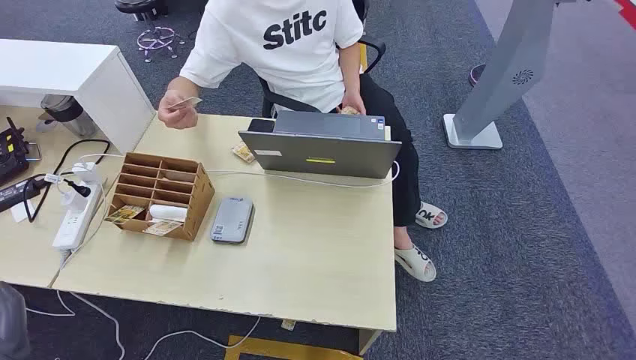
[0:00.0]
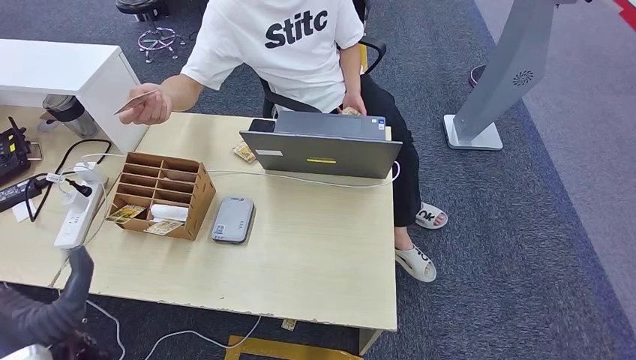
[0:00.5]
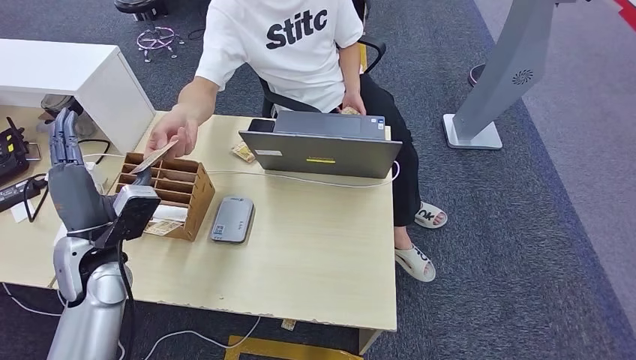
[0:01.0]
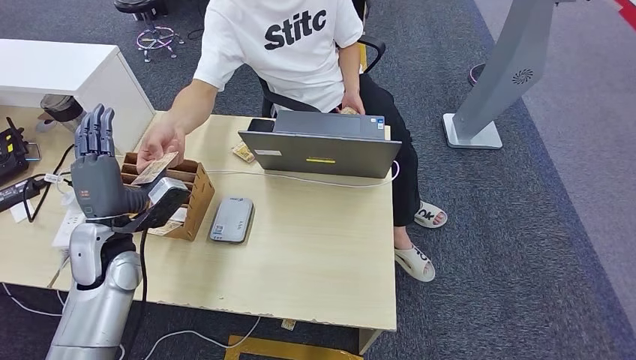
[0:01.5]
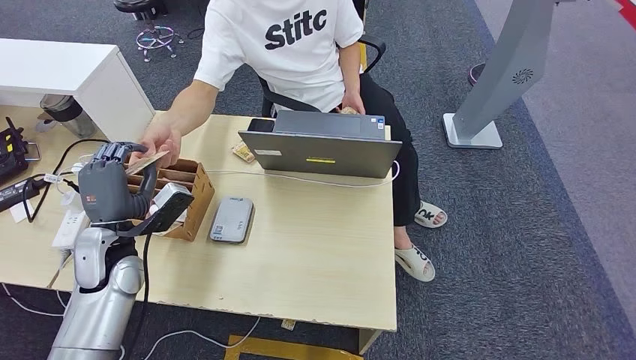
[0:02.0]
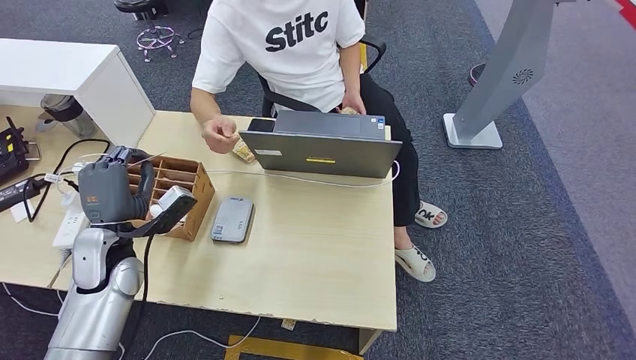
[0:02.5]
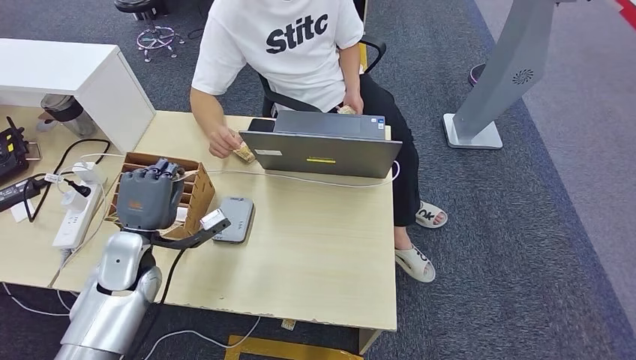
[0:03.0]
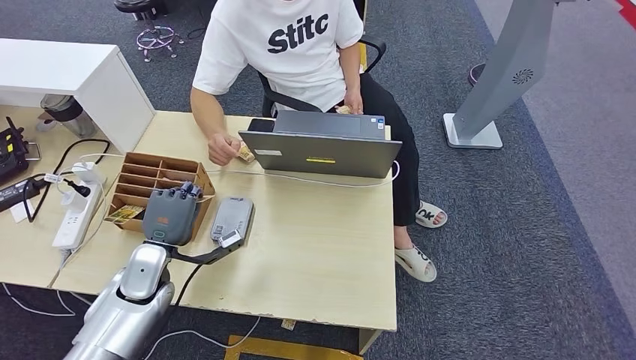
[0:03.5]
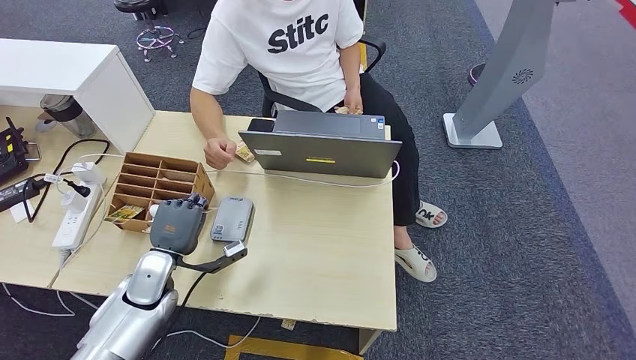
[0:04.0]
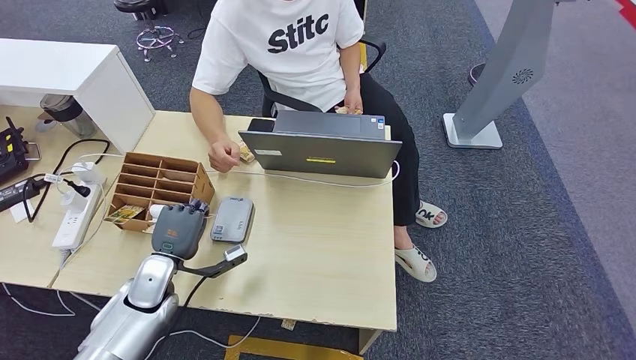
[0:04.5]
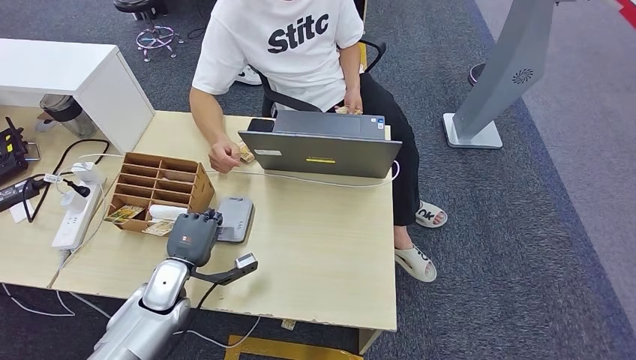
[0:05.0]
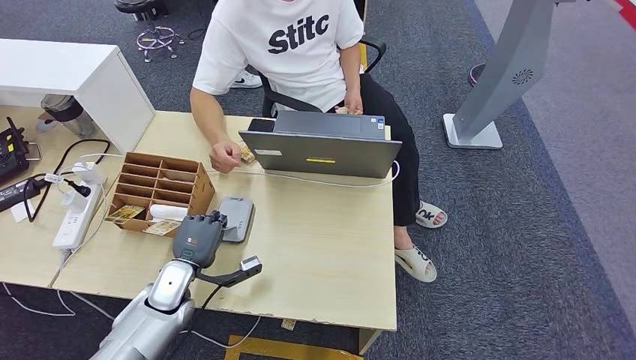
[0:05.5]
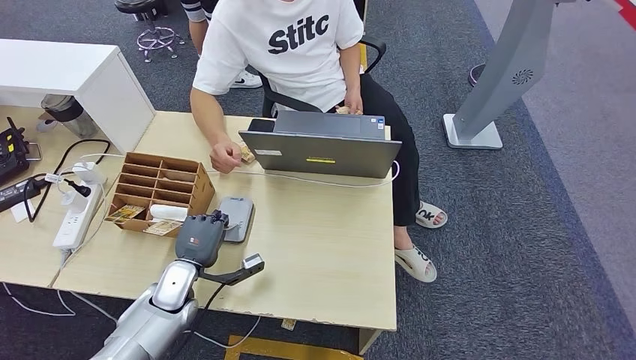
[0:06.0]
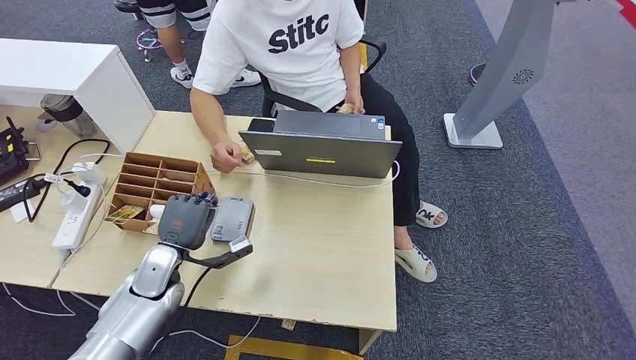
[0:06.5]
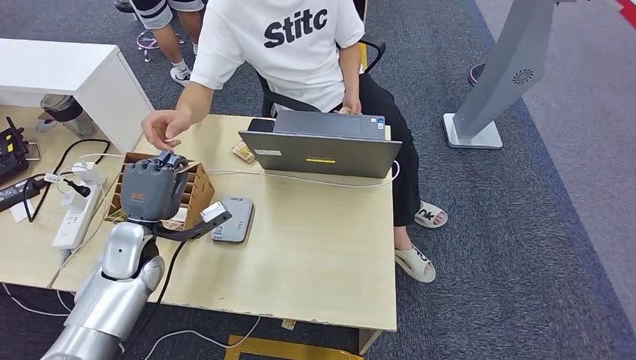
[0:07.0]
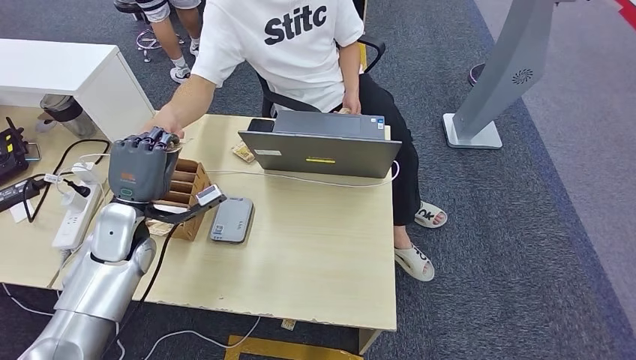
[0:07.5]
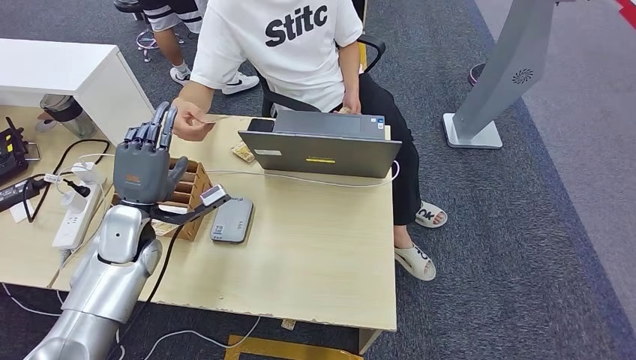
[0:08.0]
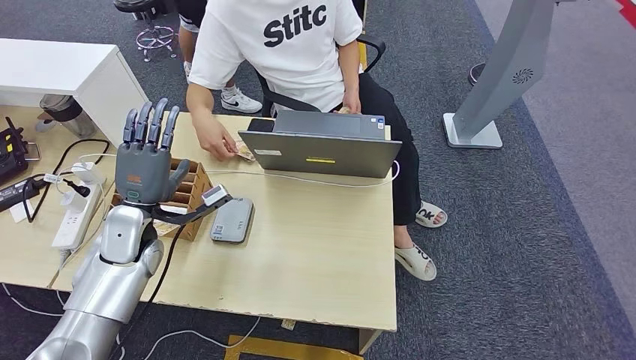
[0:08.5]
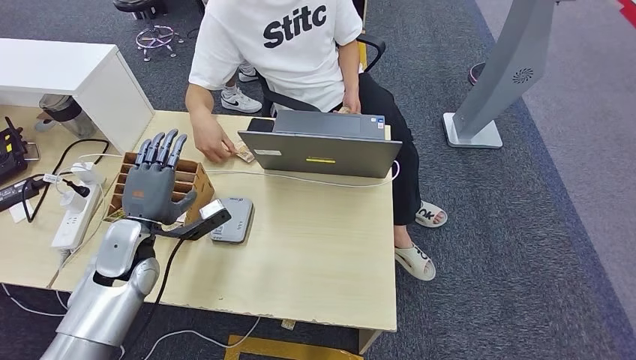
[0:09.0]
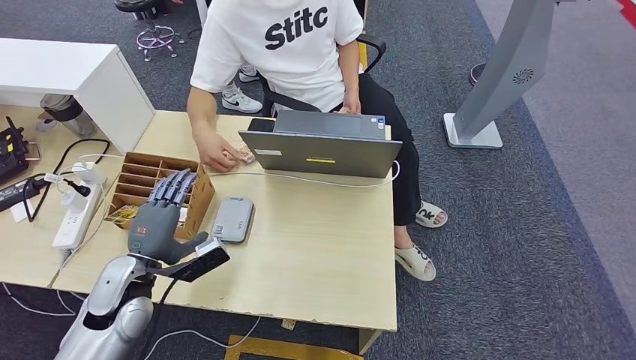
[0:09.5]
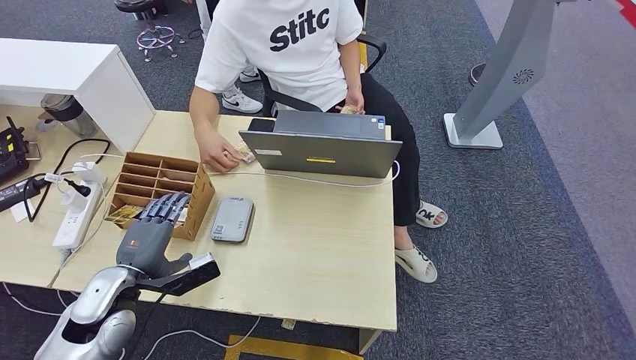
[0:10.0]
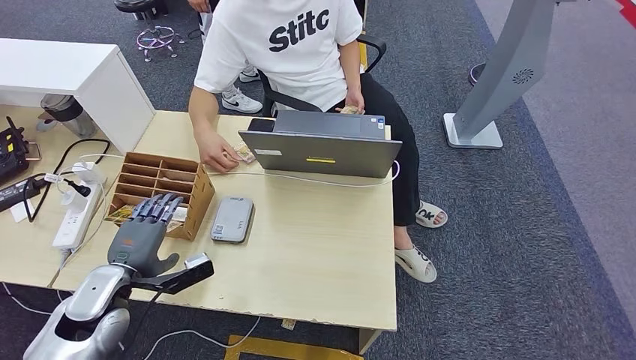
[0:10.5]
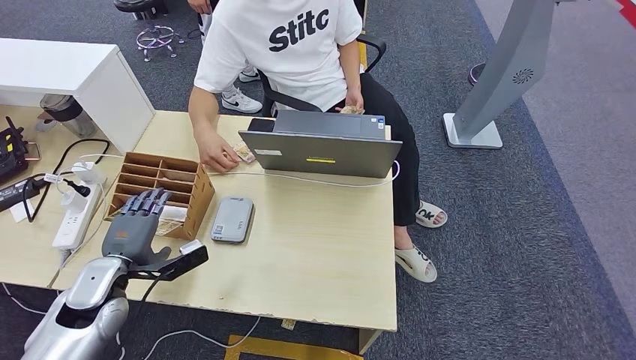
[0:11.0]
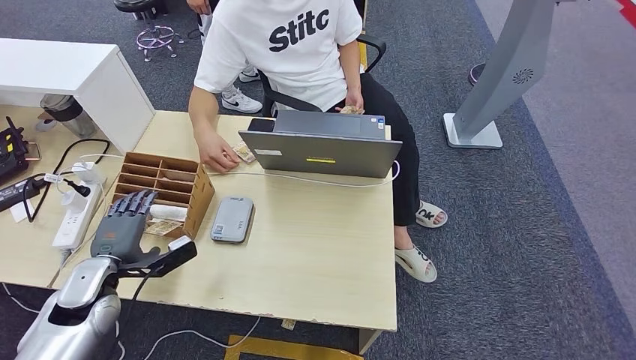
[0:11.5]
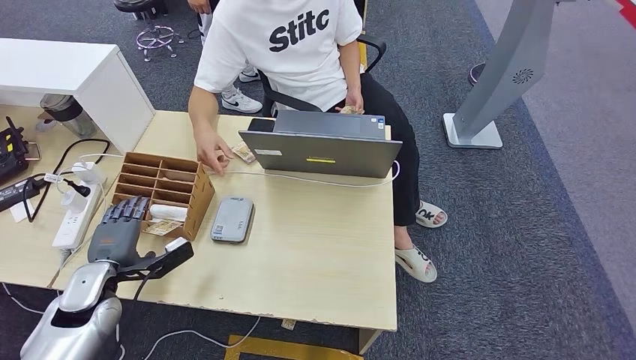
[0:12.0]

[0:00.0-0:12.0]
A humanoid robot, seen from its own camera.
Step, 0:00.0 to 0:02.5: Take the ID card from the person's hand.
Step, 0:03.0 to 0:06.0: Place the ID card on the card reader.
Step, 0:06.5 to 0:08.0: Hand the ID card to the person.
0:02.0 to 0:04.0: The left hand goes about 10 cm downward.
0:04.0 to 0:06.0: The left hand shifts by roughly 5 cm.
0:06.0 to 0:08.0: The left hand shifts some 15 cm upward.
0:08.0 to 0:10.0: The left hand is displaced backward by approximately 10 cm.
0:10.0 to 0:12.0: The left hand travels to the left by about 5 cm.

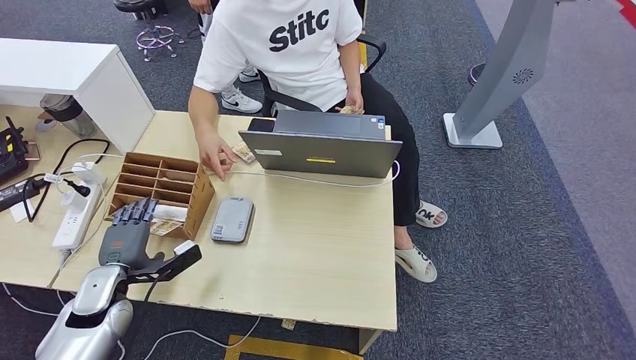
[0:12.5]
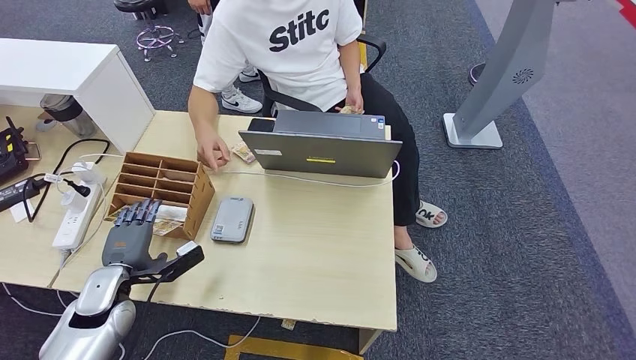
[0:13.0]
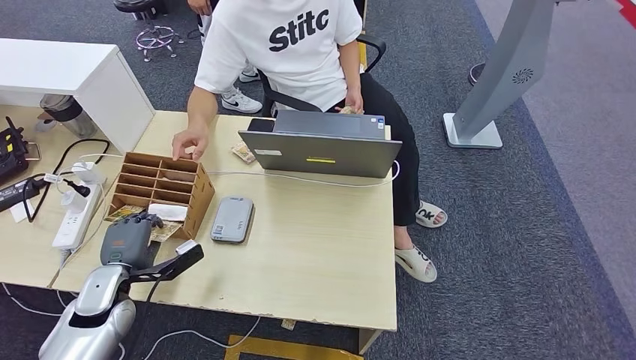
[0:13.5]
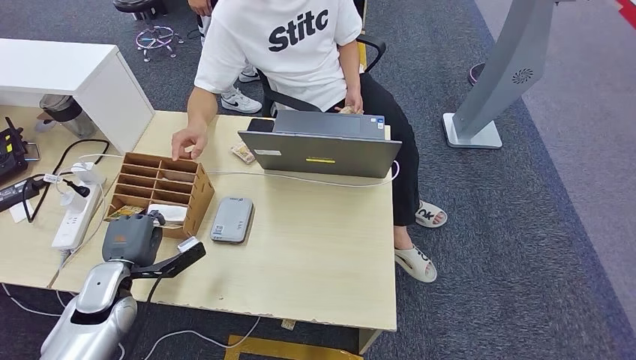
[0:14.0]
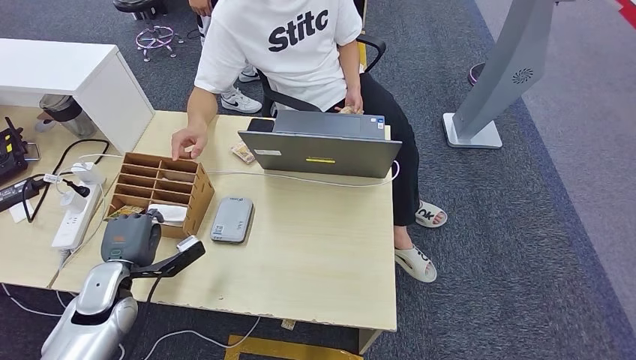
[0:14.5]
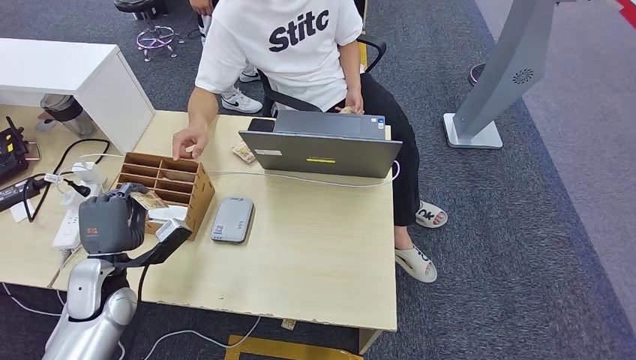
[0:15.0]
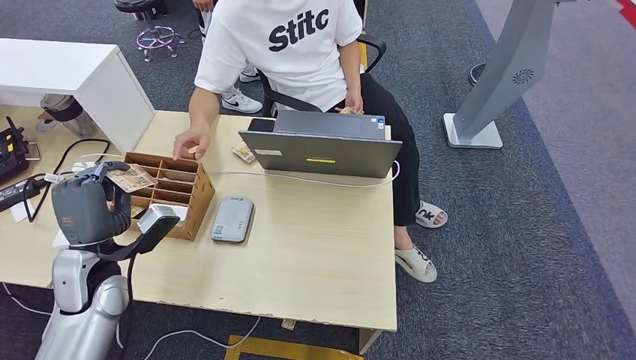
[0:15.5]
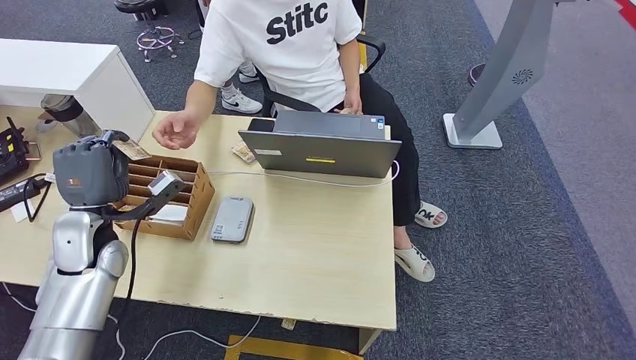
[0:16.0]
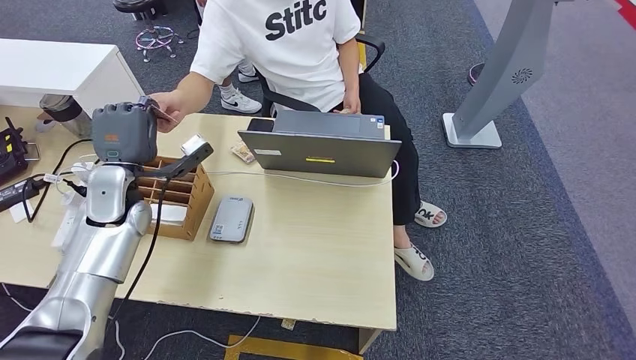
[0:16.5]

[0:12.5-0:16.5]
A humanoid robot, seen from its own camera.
Step, 0:12.5 to 0:15.5: Pick up the room key from the key card box.
Step, 0:16.0 to 0:16.5: Hand the room key to the person.
0:12.5 to 0:14.5: There are only small adjustments of the hands.
0:14.5 to 0:16.5: The left hand moves upward and forward, approximately 20 cm.

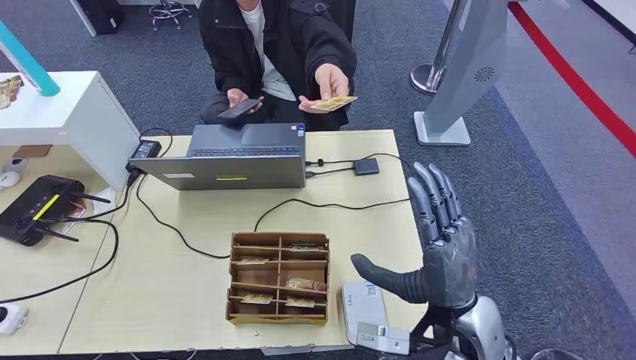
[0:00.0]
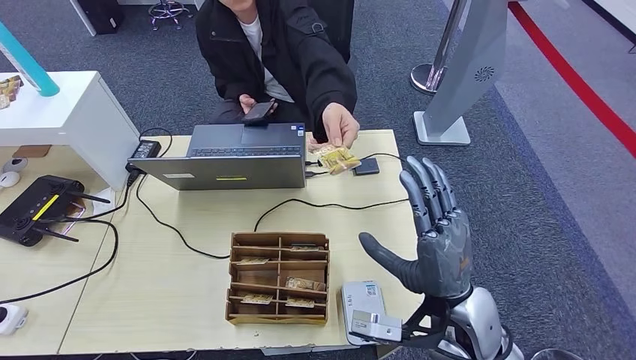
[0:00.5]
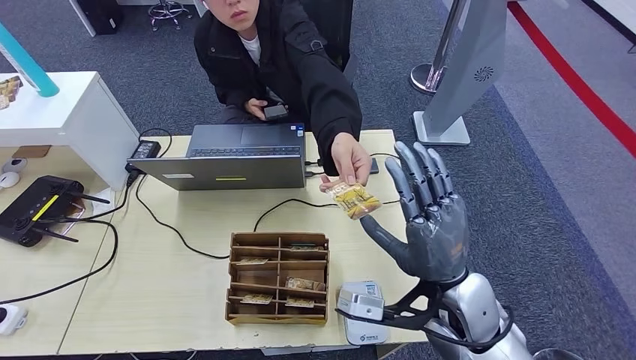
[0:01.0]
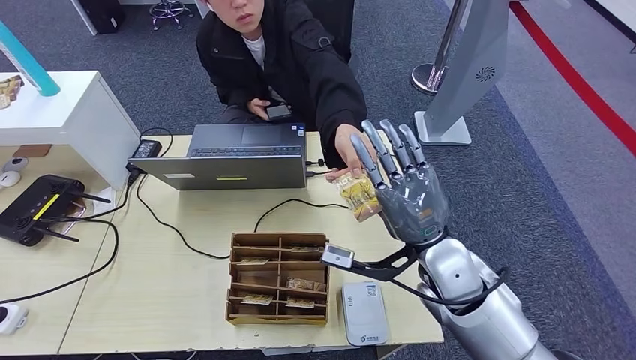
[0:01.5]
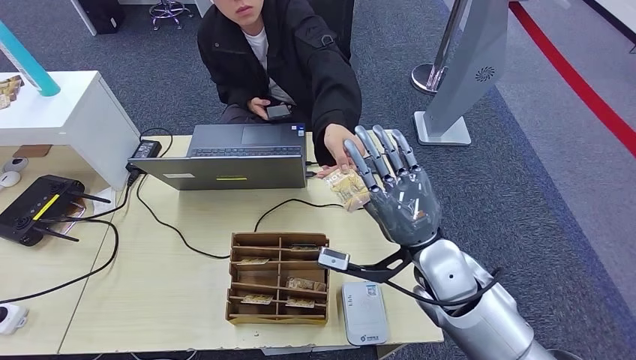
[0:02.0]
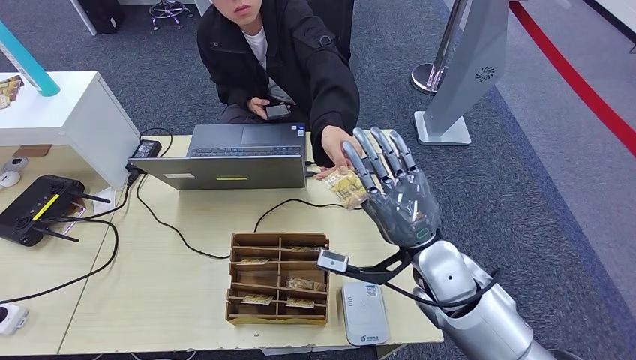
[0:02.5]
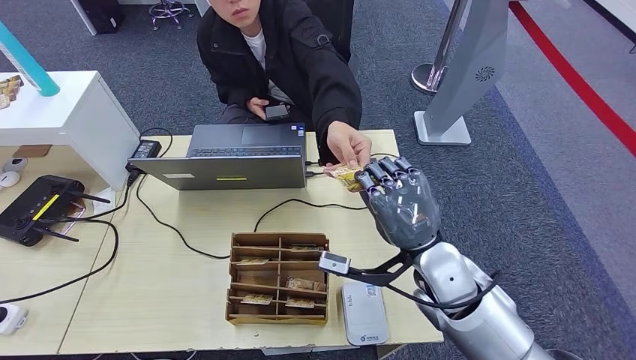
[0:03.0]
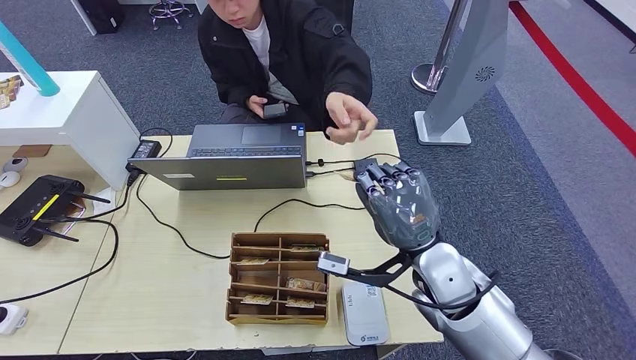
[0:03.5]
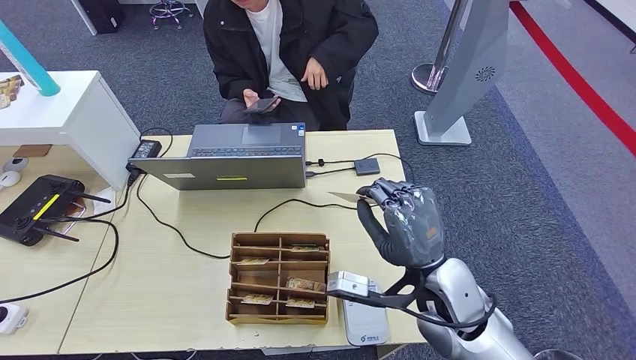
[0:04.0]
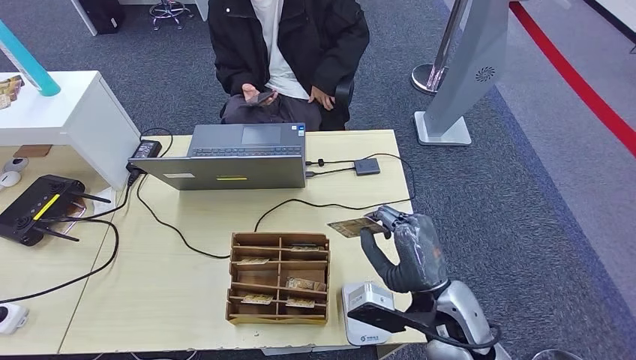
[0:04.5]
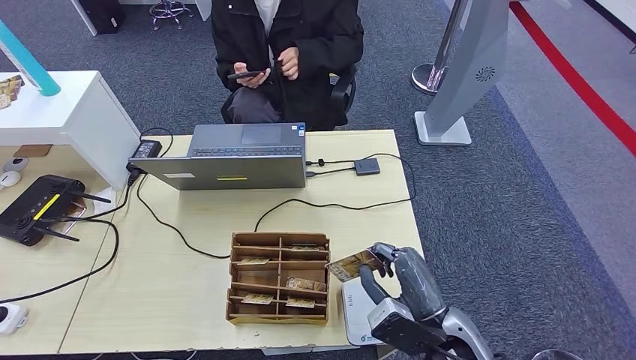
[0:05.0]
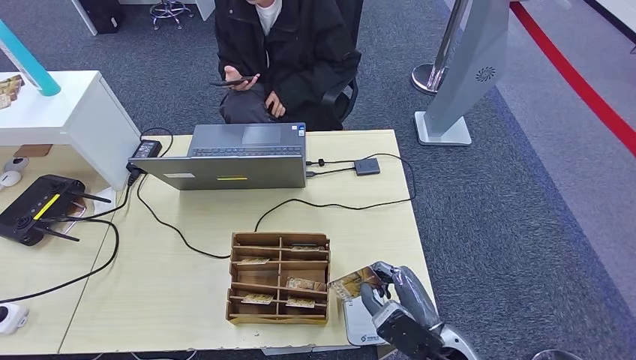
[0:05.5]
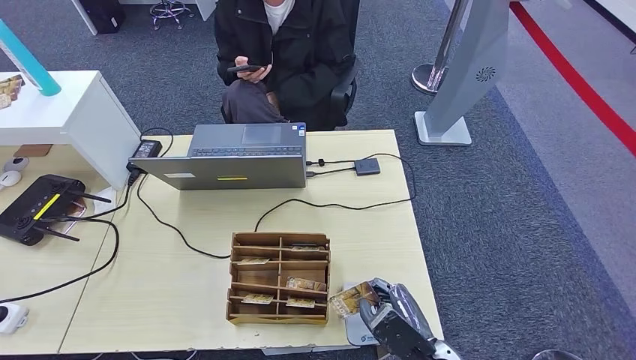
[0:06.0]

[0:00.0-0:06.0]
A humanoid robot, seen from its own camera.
Step, 0:00.0 to 0:05.5: Take the ID card from the person's hand.
0:04.0 to 0:06.0: The right hand heads downward and backward, covering approximately 15 cm.
